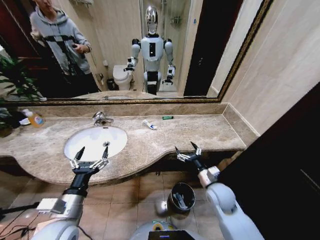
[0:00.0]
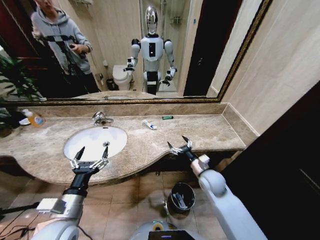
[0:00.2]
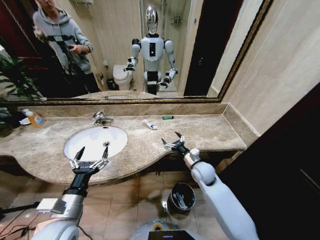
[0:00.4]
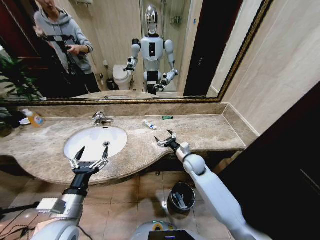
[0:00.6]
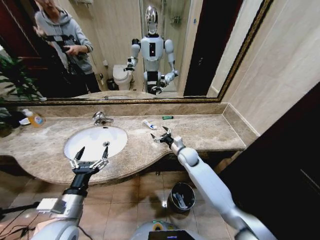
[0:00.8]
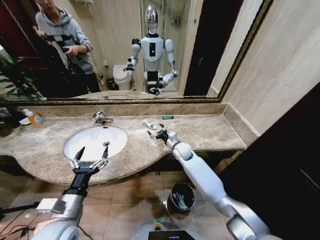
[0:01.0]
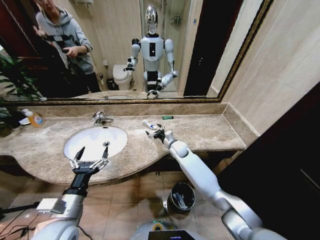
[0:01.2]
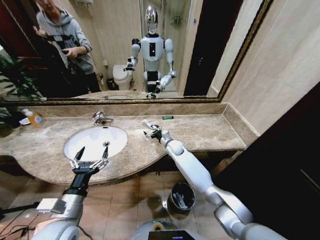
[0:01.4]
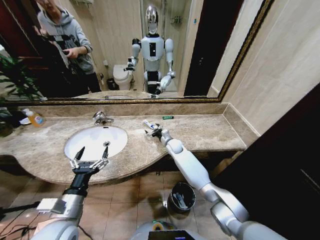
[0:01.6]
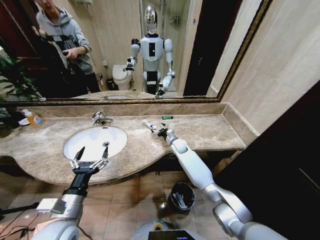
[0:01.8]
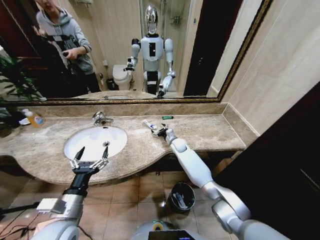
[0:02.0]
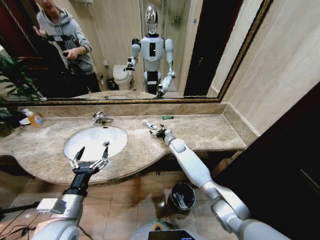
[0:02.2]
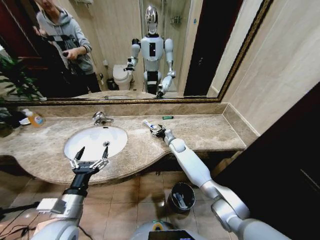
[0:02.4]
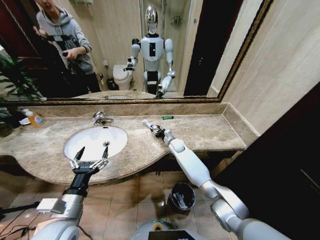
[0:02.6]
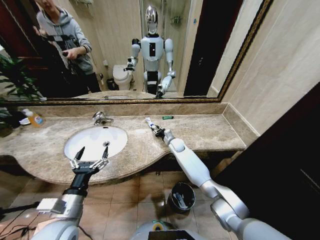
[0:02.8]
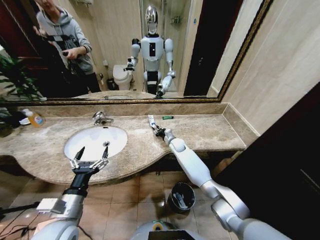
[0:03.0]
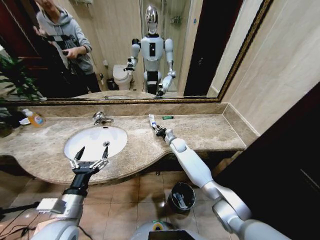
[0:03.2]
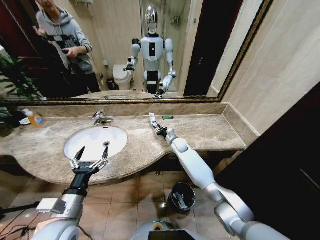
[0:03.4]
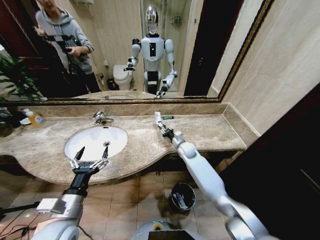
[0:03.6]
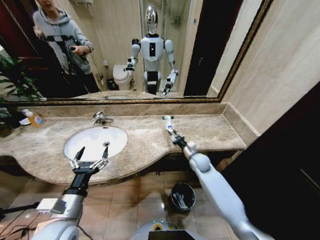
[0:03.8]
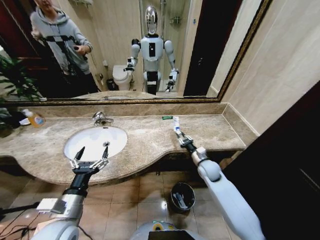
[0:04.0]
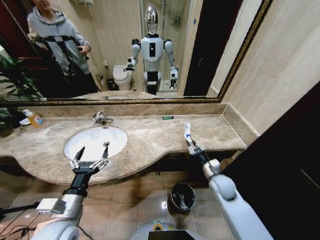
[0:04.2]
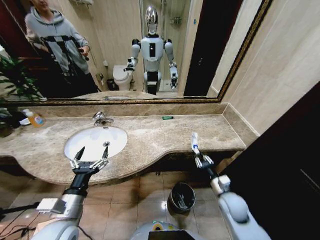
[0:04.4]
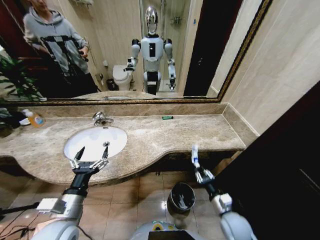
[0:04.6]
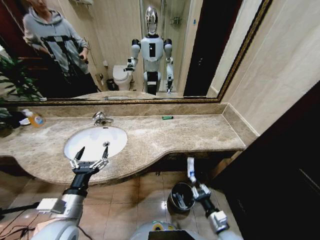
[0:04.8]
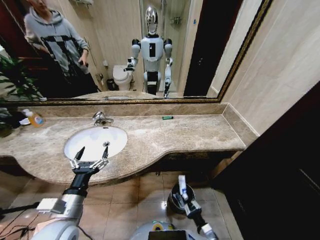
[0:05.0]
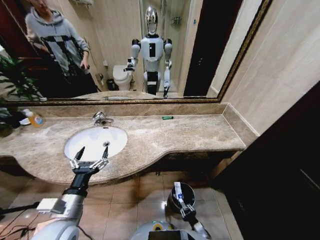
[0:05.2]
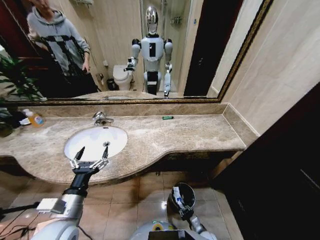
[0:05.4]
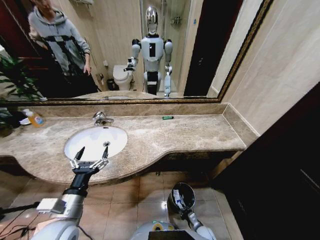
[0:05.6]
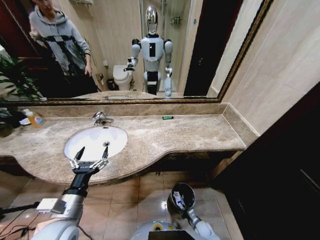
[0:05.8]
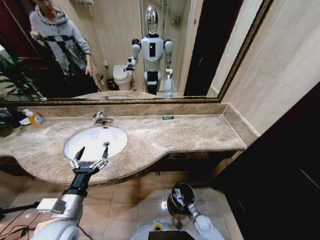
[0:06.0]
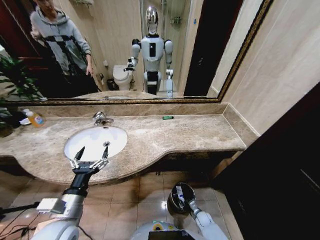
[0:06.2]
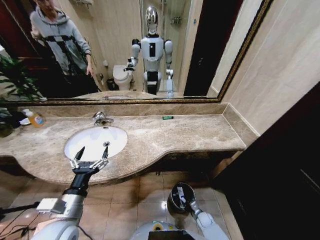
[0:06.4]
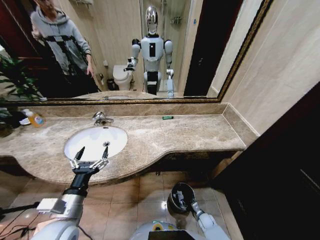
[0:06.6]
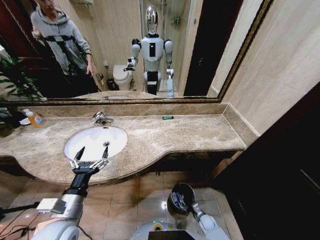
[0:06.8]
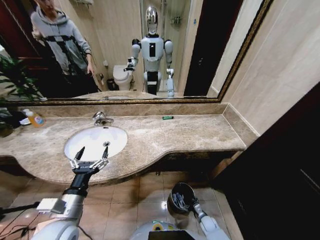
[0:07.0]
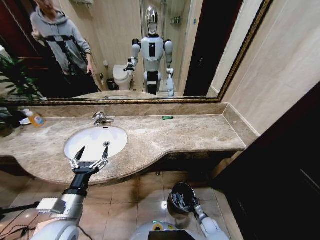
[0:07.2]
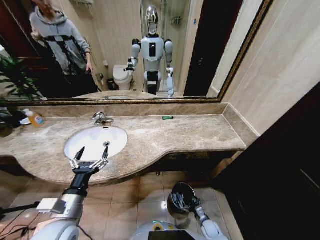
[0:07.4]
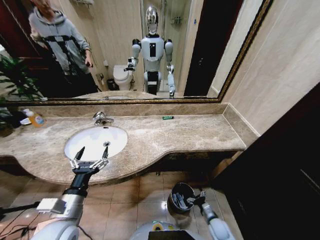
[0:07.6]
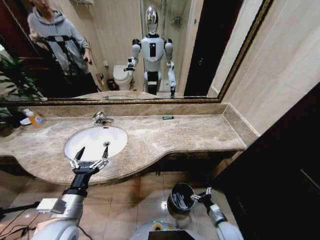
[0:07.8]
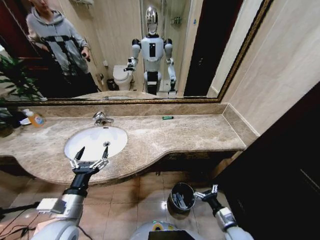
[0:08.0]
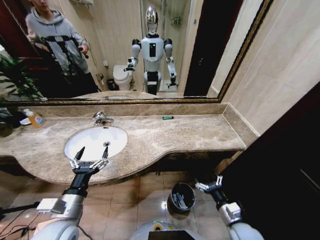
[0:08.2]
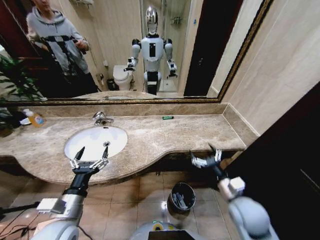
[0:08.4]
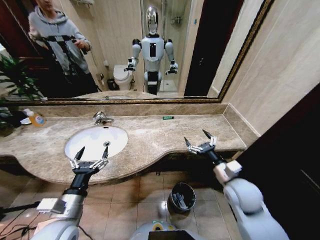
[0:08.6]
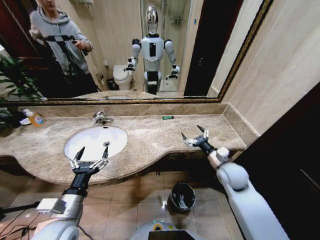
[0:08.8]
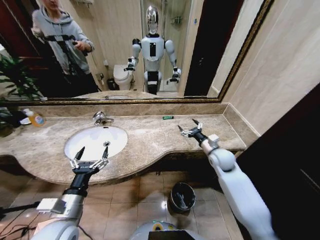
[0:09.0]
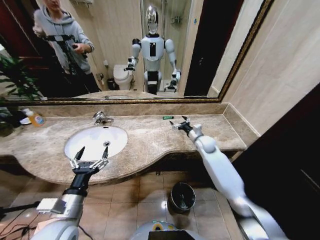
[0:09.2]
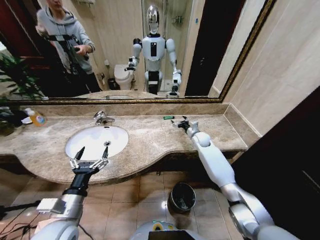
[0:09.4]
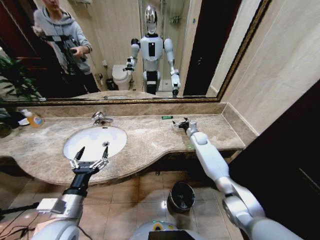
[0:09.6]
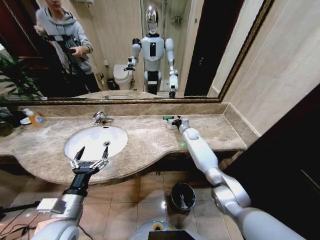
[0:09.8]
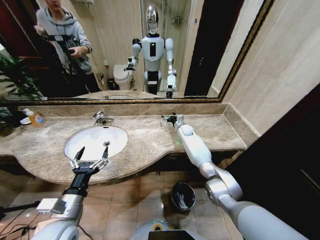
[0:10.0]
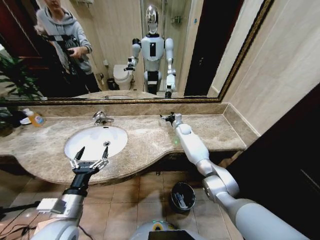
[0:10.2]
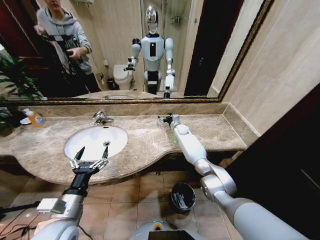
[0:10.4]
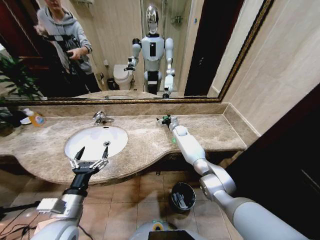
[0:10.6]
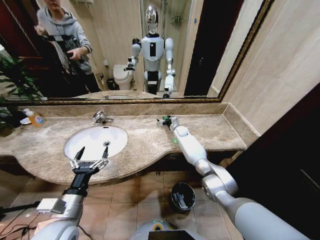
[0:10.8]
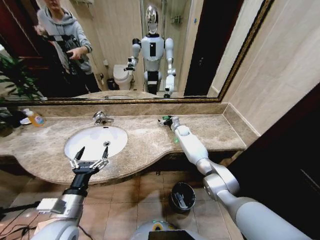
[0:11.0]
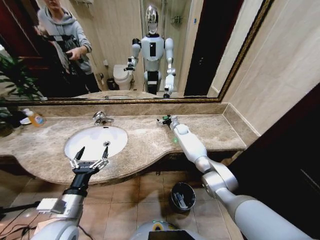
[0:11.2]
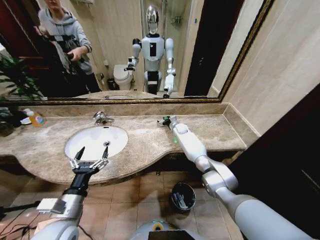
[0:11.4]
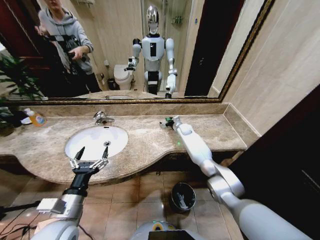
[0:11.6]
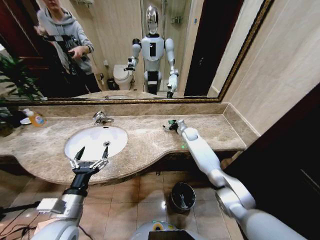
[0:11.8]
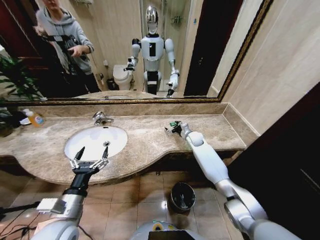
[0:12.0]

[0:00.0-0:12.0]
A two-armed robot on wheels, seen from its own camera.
Task of the whole recording: Pick up the trash from the sink and place it in the trash bin.
0:00.0 to 0:01.6: The right gripper shifts some 30 cm forward and to the left.
0:01.6 to 0:03.0: The right gripper closes its fingers.
0:03.0 to 0:04.4: The right gripper is displaced backward and to the right by some 35 cm.
0:04.4 to 0:06.0: The right gripper moves downward, approximately 30 cm.
0:06.0 to 0:07.6: The right gripper is displaced upward by some 5 cm, and opens its fingers.
0:07.6 to 0:09.0: The right gripper shifts about 40 cm upward and forward.
0:09.0 to 0:10.4: The right gripper heads forward and to the left, covering about 25 cm.
0:10.4 to 0:12.0: The right gripper goes approximately 10 cm backward and to the right.

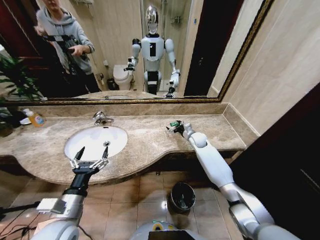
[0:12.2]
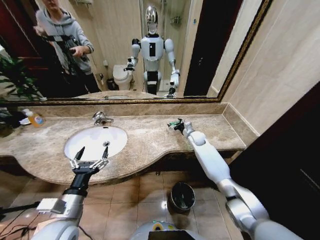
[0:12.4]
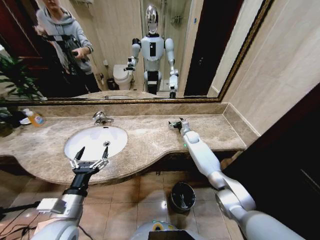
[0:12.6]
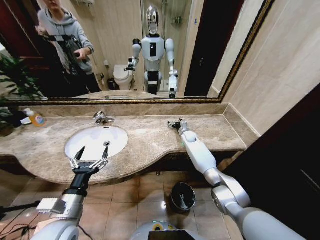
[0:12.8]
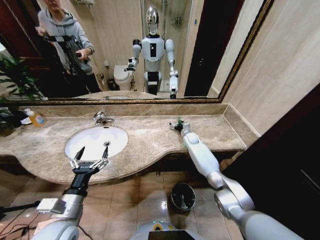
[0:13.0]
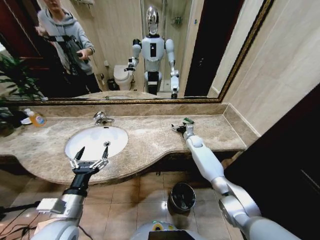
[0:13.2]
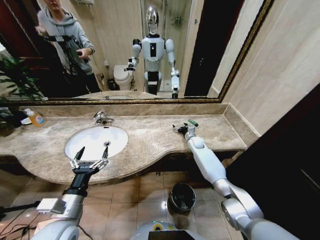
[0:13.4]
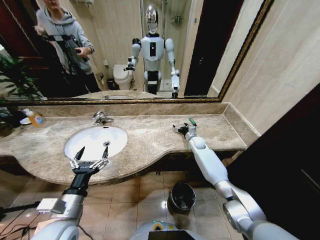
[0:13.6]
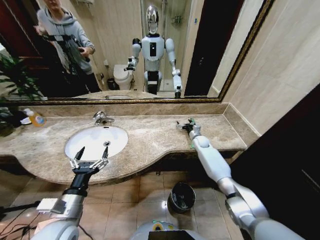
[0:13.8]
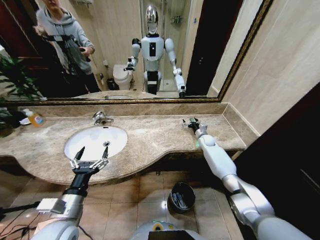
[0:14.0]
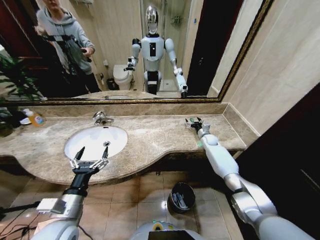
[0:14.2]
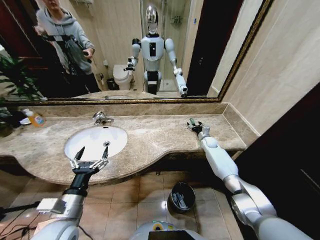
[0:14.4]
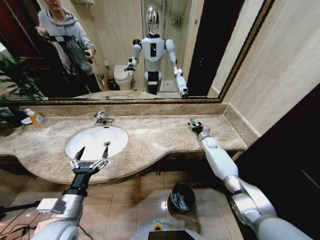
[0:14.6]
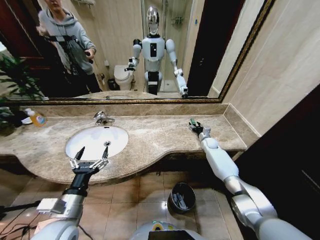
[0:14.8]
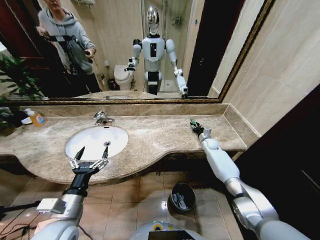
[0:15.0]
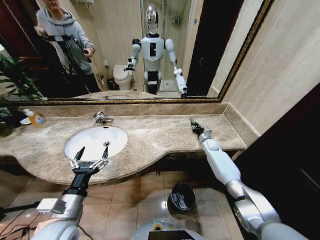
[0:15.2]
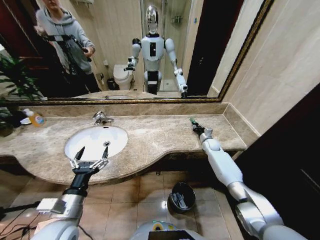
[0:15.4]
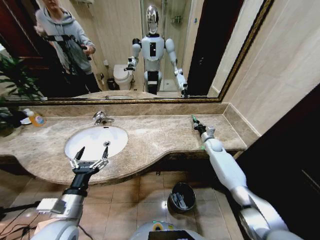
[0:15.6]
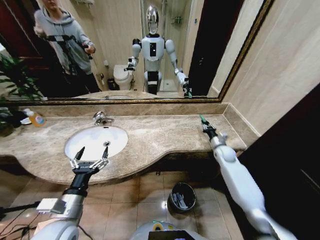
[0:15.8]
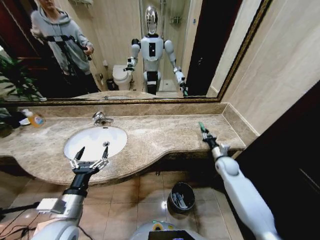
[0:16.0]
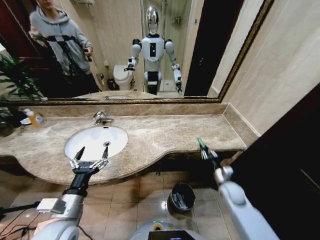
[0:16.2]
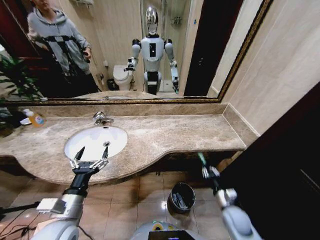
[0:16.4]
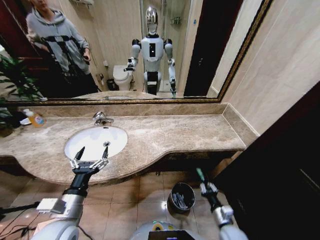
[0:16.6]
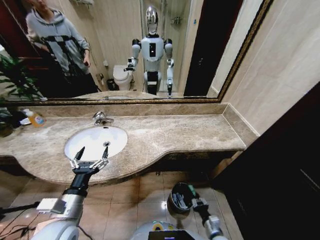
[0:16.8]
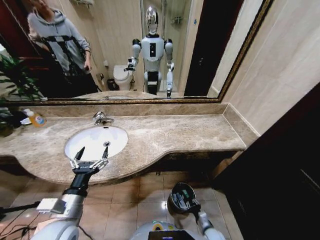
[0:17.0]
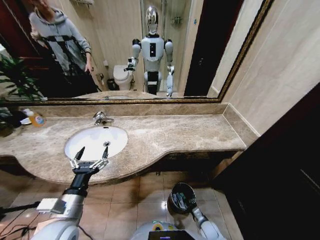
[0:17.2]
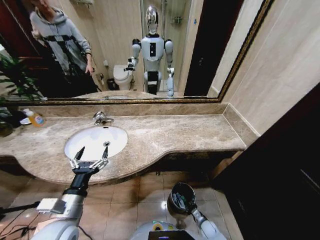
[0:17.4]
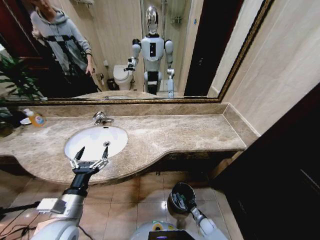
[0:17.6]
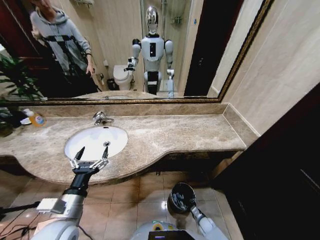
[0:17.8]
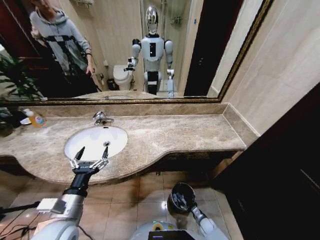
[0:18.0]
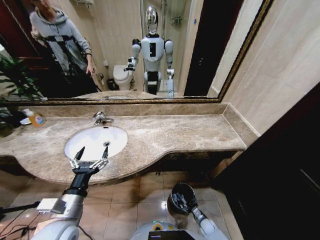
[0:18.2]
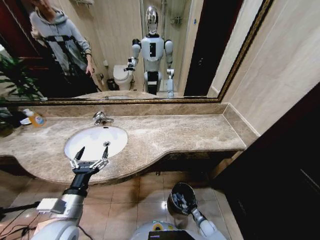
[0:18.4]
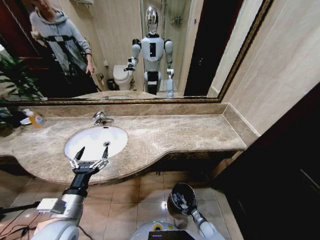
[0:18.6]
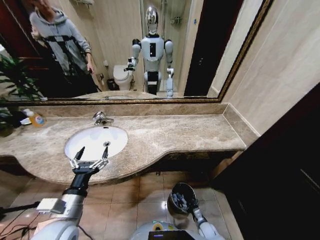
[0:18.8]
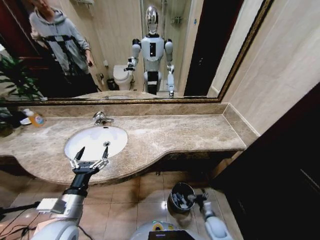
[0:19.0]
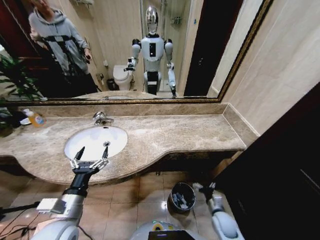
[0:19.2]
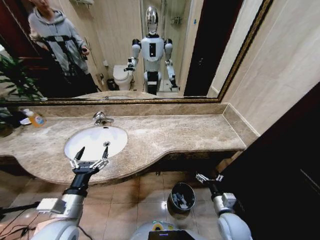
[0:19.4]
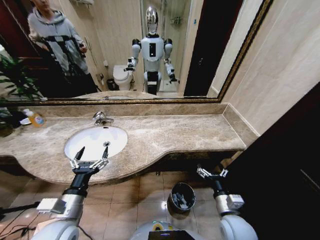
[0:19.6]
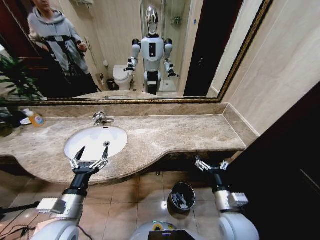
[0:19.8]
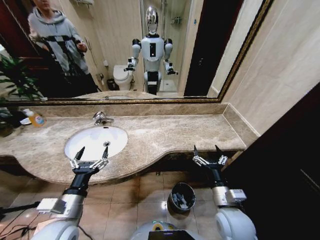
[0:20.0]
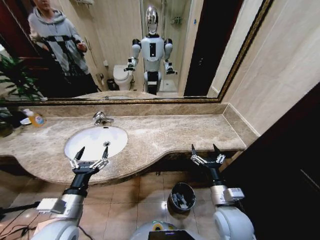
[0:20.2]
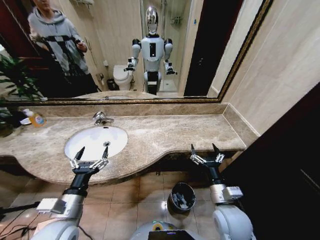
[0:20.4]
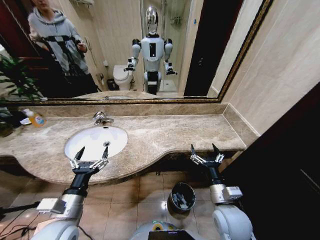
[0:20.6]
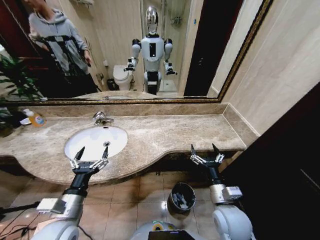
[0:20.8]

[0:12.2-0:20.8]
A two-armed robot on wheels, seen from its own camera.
Task of the whole recording: Pick up the trash from the sink and place it in the trash bin.
0:12.2 to 0:13.6: The right gripper heads downward, covering approximately 5 cm.
0:13.6 to 0:15.0: The right gripper travels to the right by approximately 10 cm, and closes its fingers.
0:15.0 to 0:16.6: The right gripper travels backward by approximately 40 cm.
0:16.6 to 0:18.0: The right gripper is displaced downward by approximately 20 cm, and opens.
0:18.0 to 0:19.4: The right gripper heads upward, covering about 30 cm, and opens up.
0:19.4 to 0:20.8: The right gripper travels upward and to the left by some 10 cm.
